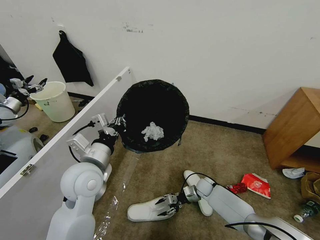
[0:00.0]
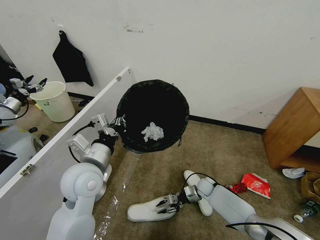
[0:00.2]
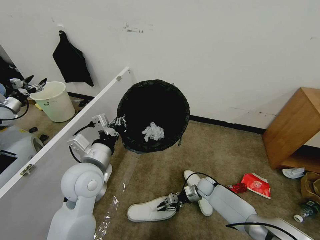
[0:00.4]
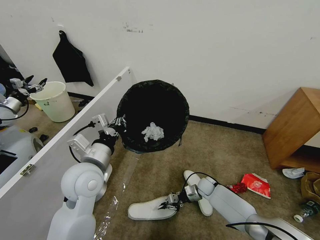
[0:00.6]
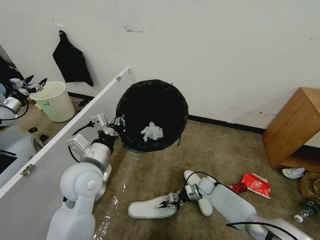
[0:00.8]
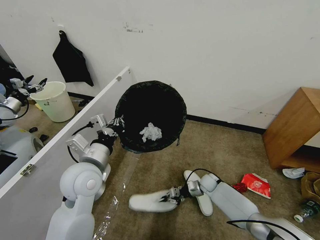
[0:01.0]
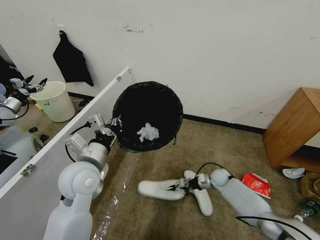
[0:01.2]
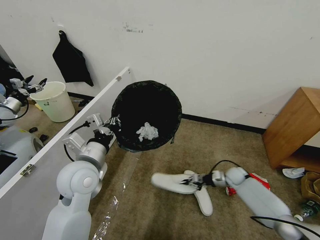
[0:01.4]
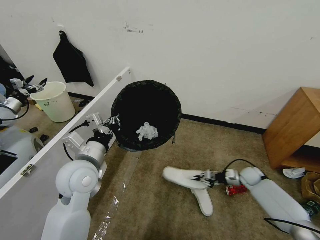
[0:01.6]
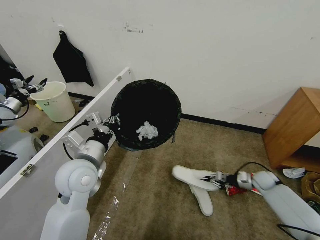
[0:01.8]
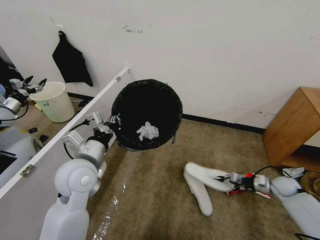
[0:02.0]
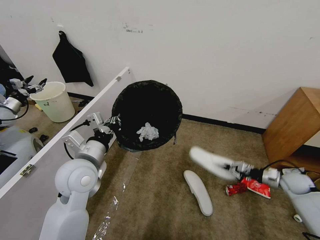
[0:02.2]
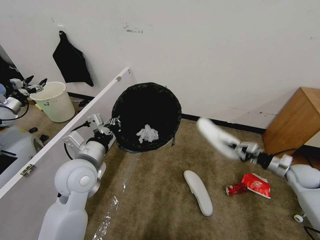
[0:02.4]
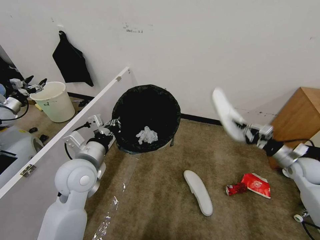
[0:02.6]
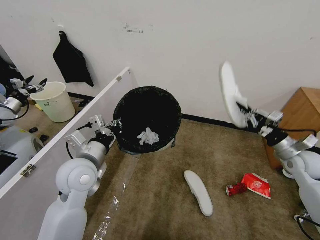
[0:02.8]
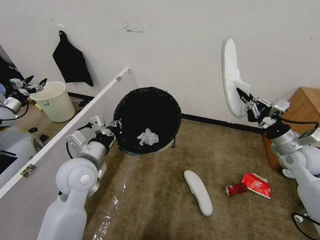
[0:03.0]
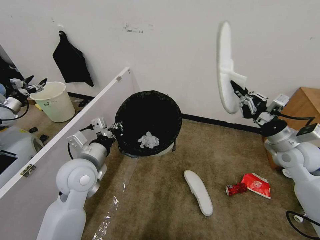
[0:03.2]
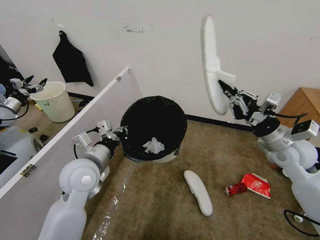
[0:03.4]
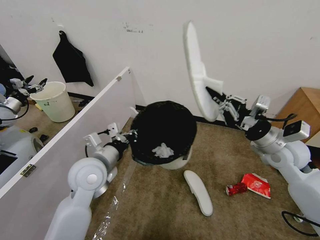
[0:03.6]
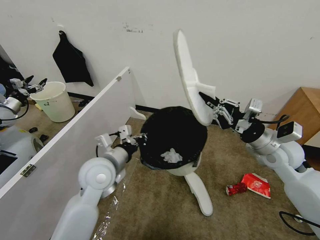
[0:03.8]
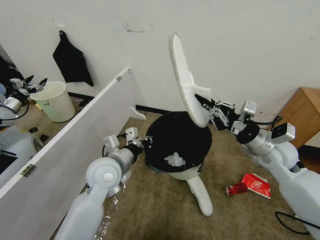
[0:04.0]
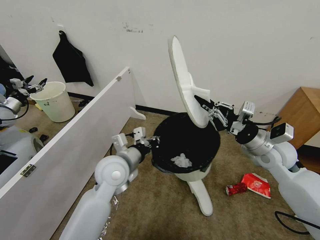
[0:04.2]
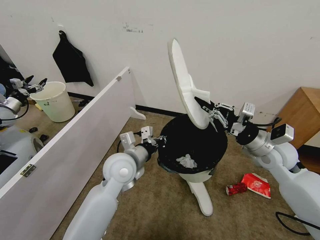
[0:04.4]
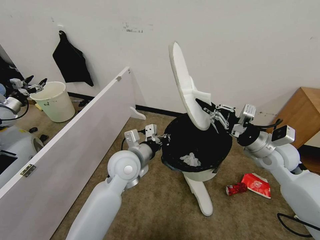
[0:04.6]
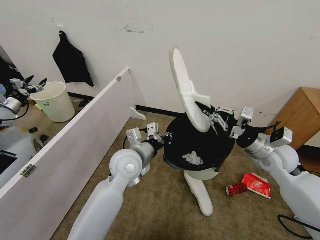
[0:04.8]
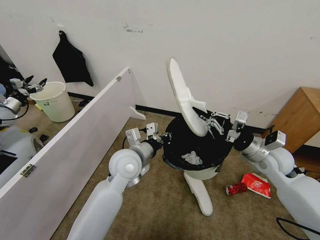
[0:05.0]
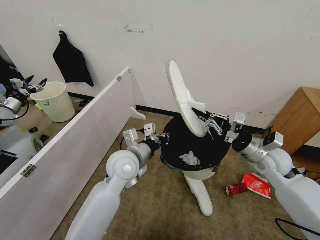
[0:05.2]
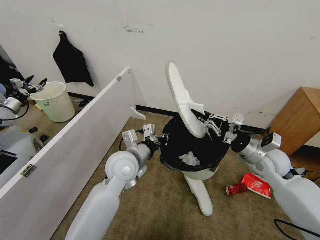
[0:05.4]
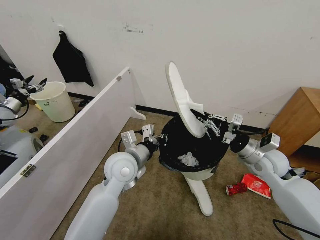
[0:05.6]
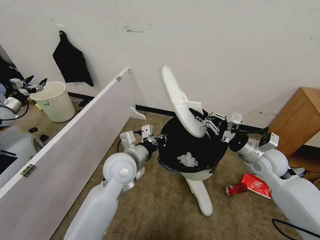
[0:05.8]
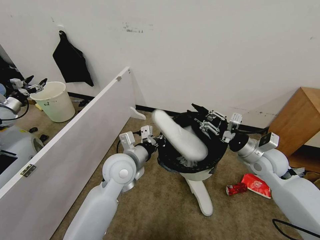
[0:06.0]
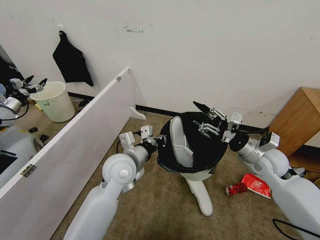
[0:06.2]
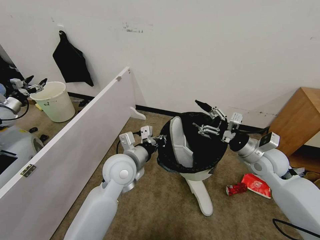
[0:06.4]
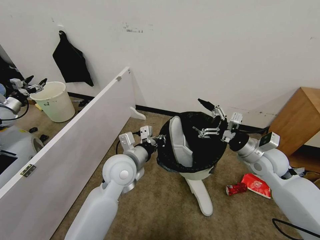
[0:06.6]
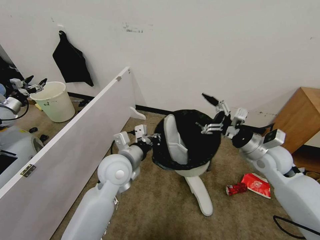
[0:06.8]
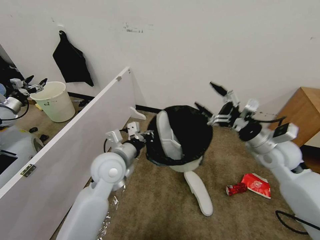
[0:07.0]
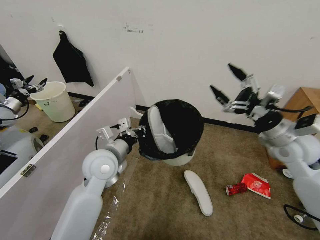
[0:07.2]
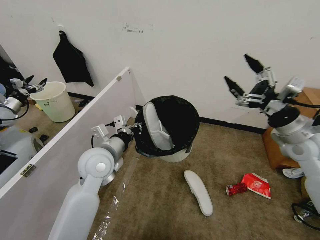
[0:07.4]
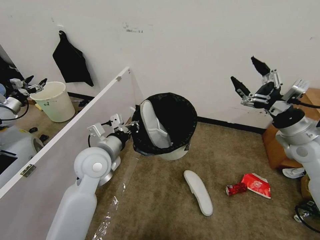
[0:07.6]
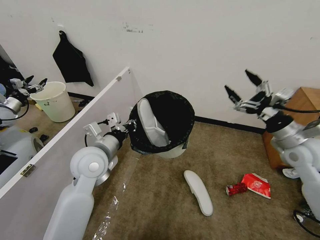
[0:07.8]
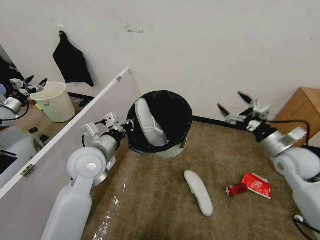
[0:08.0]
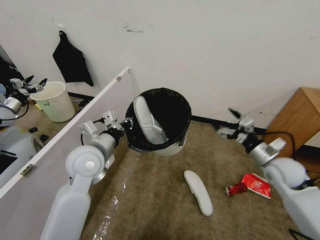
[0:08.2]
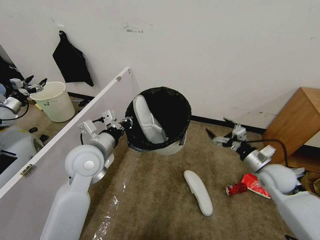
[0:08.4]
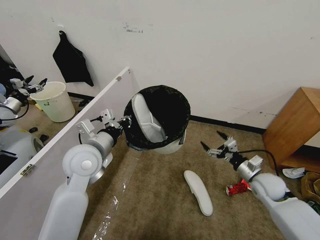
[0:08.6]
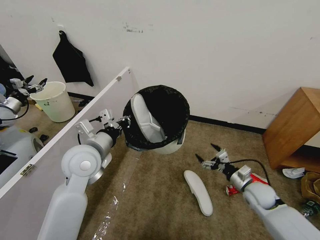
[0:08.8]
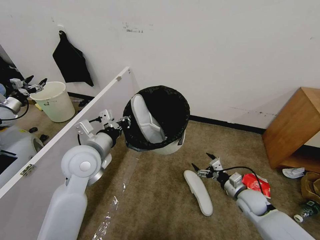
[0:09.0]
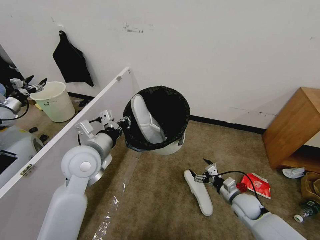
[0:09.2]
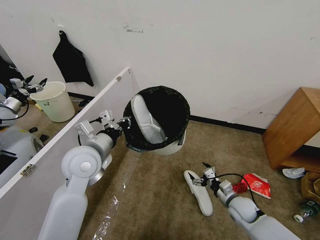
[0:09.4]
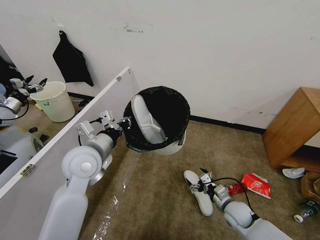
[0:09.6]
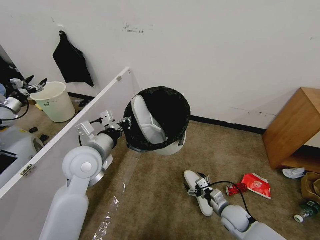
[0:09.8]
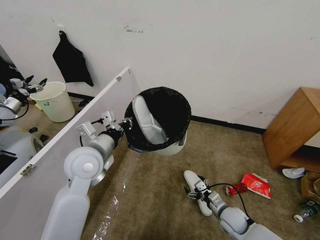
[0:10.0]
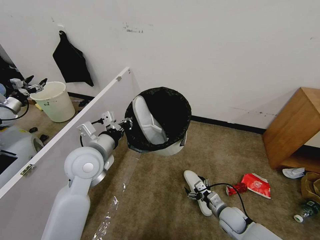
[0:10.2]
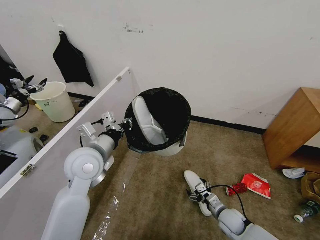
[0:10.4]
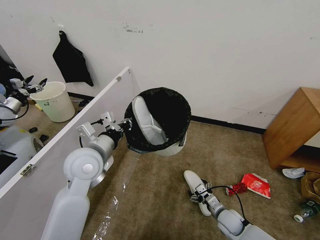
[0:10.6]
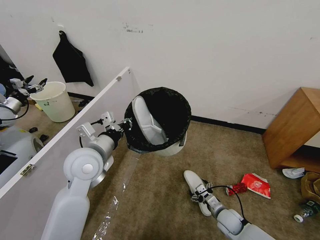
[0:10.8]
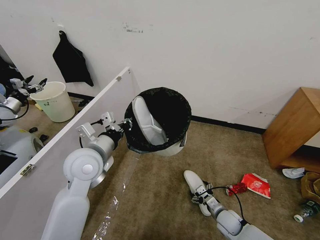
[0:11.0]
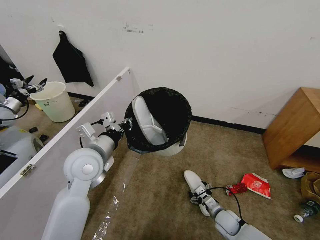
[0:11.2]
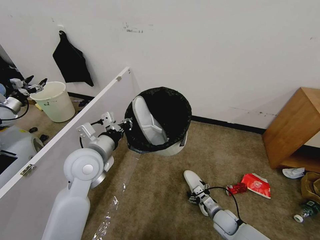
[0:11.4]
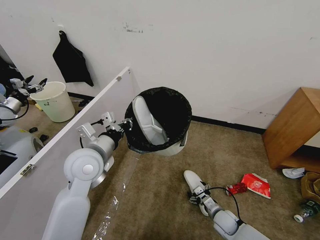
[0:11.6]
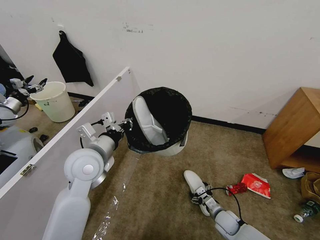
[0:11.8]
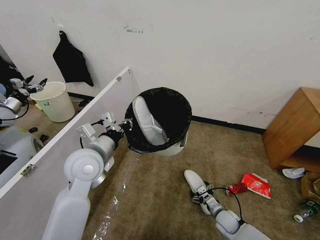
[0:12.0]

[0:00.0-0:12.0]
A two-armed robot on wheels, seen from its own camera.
Task of the whole recording: Pick up the trash bin, then pick up the garbage from the floor and place it into the trash bin.
0:00.0 to 0:01.6: The right gripper goes approximately 20 cm to the right and upward, and closes up.
0:01.6 to 0:03.0: The right gripper travels upward by approximately 25 cm.
0:03.0 to 0:04.4: The right gripper goes roughly 10 cm to the left, while the left gripper travels to the right by some 10 cm.
0:04.4 to 0:06.0: The grippers stay close to where they were, moving slightly.
0:06.0 to 0:07.6: The right gripper moves upward and to the right, about 10 cm, and opens. The left gripper goes about 5 cm to the left.
0:07.6 to 0:09.0: The right gripper moves downward, approximately 30 cm.
0:09.0 to 0:10.4: The right gripper goes about 10 cm downward and to the left.
0:10.4 to 0:12.0: The grippers stay close to where they were, moving slightly.

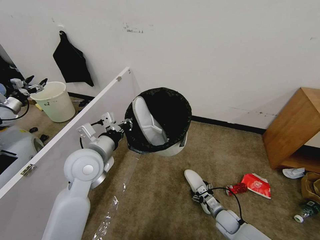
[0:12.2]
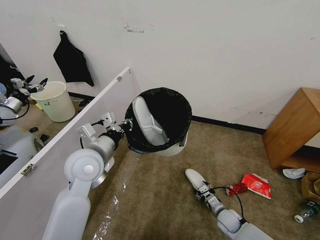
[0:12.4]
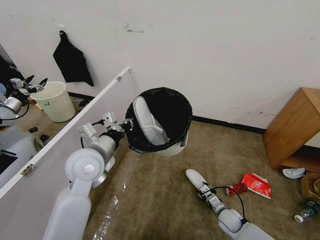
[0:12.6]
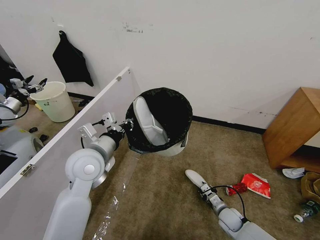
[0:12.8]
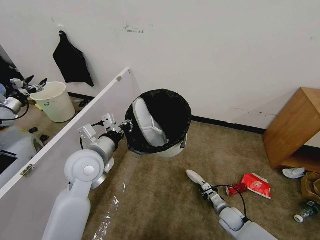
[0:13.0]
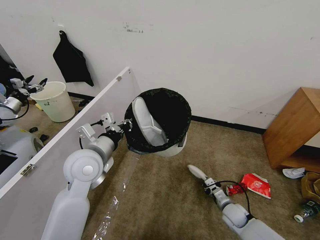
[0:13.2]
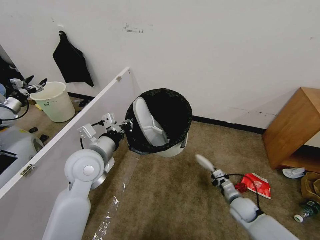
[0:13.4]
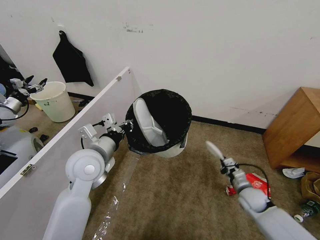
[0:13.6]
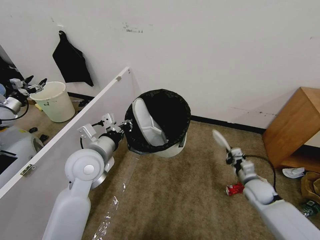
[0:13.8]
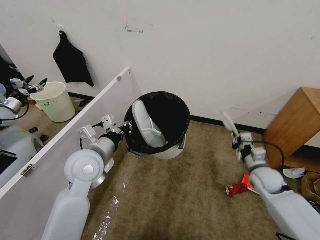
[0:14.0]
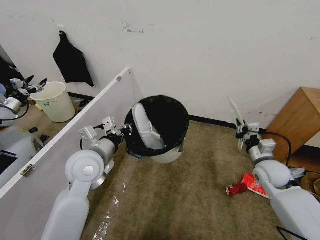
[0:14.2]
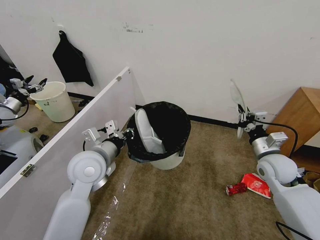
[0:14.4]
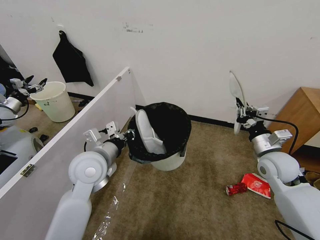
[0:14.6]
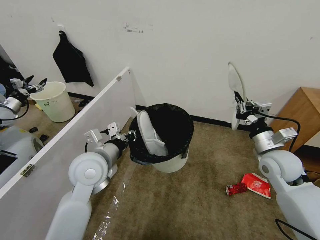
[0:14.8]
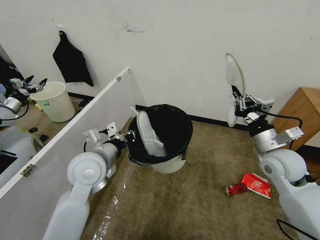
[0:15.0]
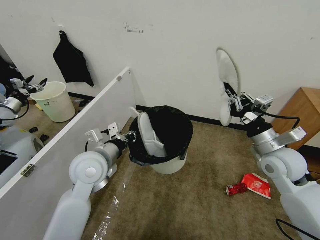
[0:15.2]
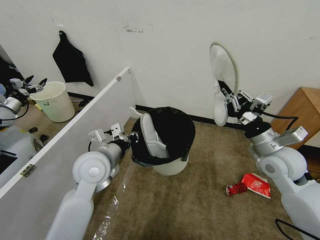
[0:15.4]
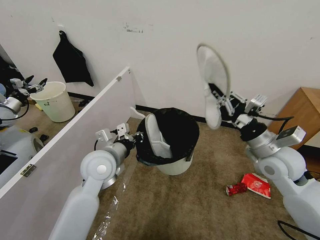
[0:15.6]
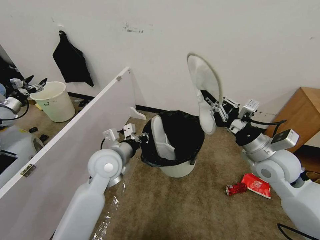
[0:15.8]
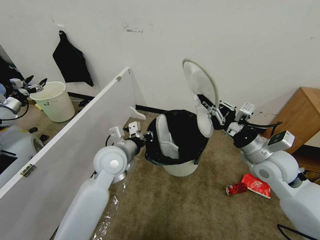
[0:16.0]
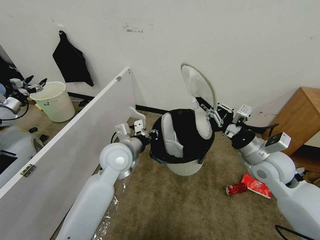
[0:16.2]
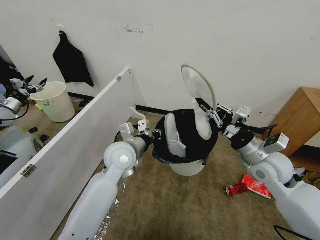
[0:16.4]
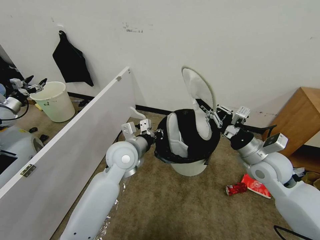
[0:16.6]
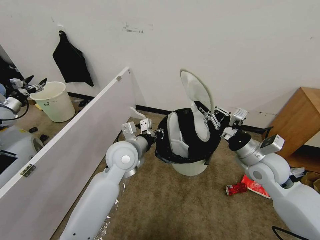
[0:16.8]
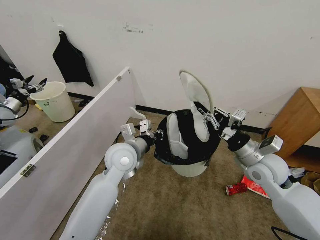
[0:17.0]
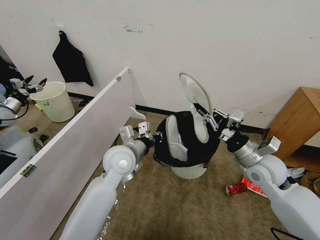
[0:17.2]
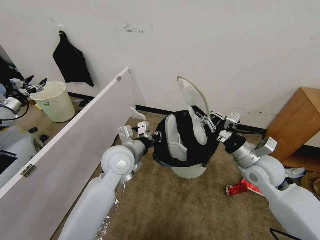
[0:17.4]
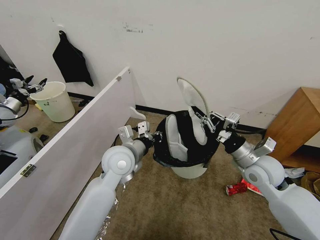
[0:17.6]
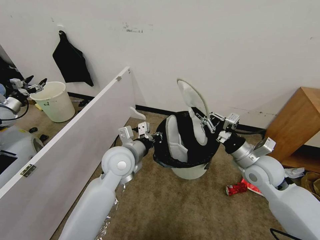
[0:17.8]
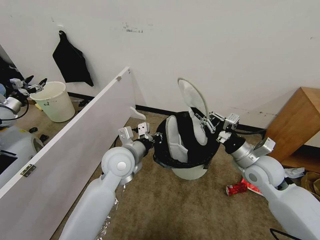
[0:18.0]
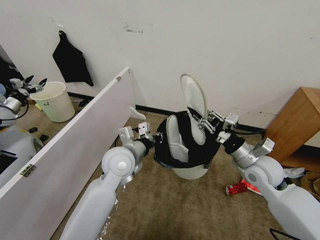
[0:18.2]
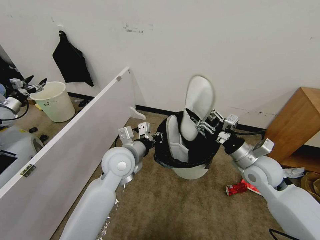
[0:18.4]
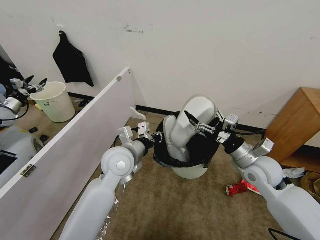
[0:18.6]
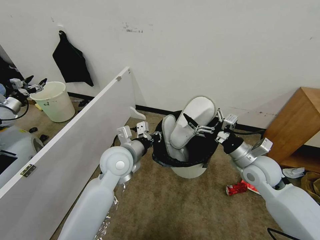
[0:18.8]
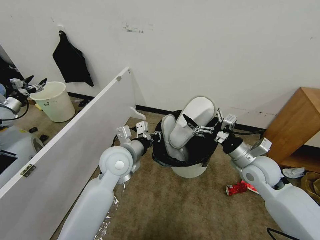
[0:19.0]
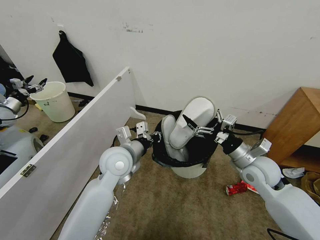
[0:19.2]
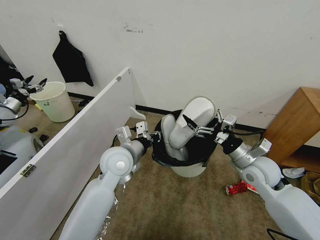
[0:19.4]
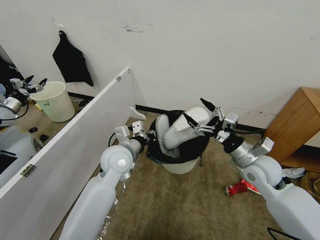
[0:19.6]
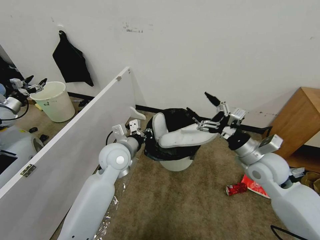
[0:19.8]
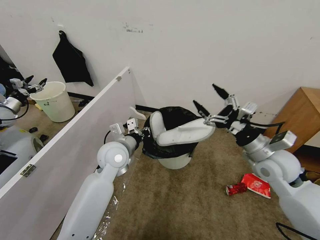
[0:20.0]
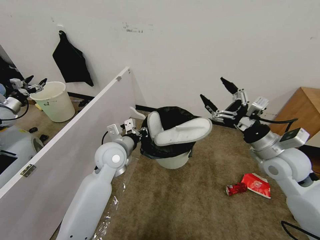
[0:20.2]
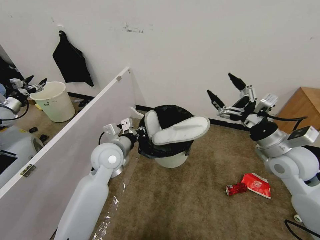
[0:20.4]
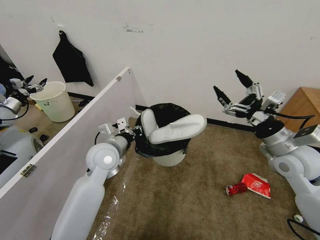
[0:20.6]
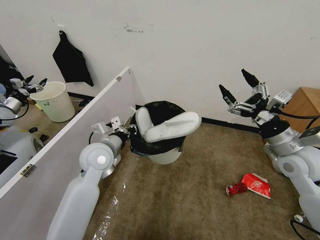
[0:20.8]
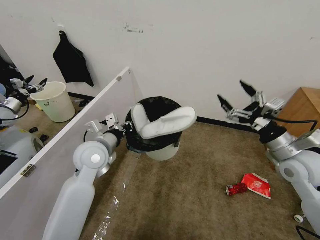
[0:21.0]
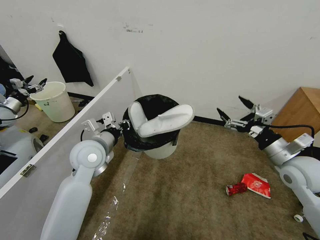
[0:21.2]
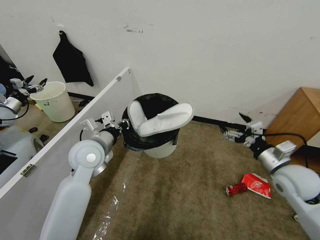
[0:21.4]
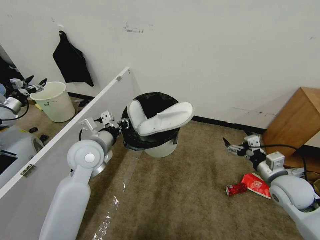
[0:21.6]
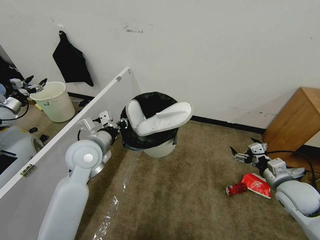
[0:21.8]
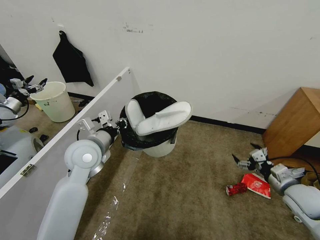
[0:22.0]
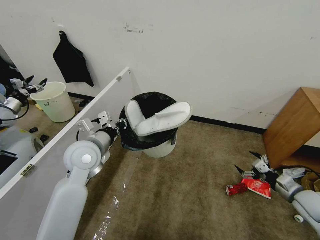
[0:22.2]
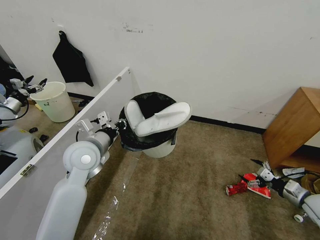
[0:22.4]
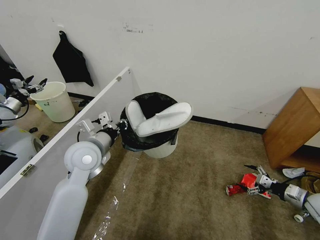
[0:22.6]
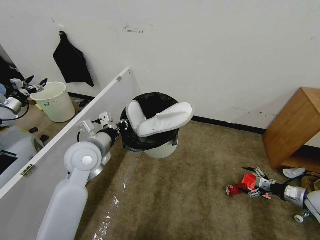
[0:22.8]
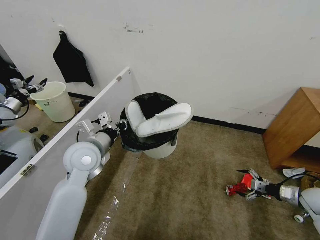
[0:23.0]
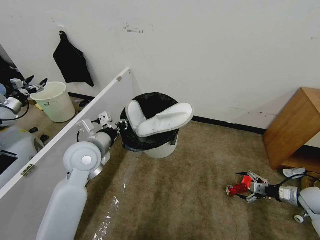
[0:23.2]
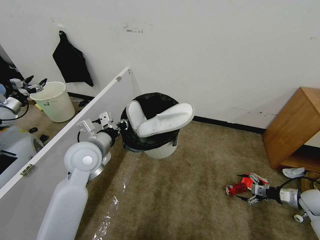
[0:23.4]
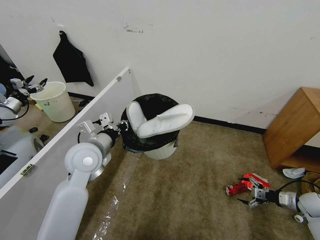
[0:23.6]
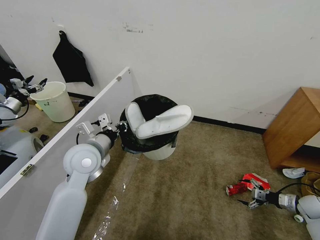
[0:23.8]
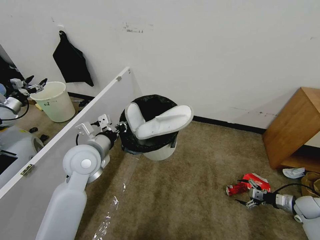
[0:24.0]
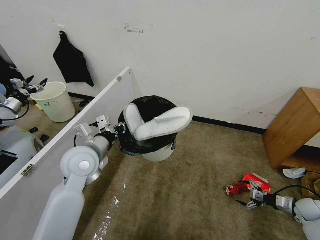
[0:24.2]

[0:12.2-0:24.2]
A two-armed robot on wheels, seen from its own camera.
Task of the whole recording: Pick up the trash bin, then pick up the garbage from the floor and place it into the trash bin.
0:12.2 to 0:13.8: The right gripper is displaced upward, to the right and forward by about 20 cm, and closes up.
0:13.8 to 0:15.2: The right gripper moves upward, about 20 cm.
0:15.2 to 0:16.6: The left gripper heads to the right and forward, covering some 10 cm.
0:16.6 to 0:18.2: The grippers stay close to where they were, moving slightly.
0:18.2 to 0:19.8: The right gripper opens up.
0:19.8 to 0:21.2: The left gripper travels to the left by some 5 cm; the right gripper goes about 10 cm to the right.
0:21.2 to 0:22.6: The right gripper moves to the right and downward, some 25 cm.
0:22.6 to 0:24.2: The right gripper shifts roughly 10 cm downward.
